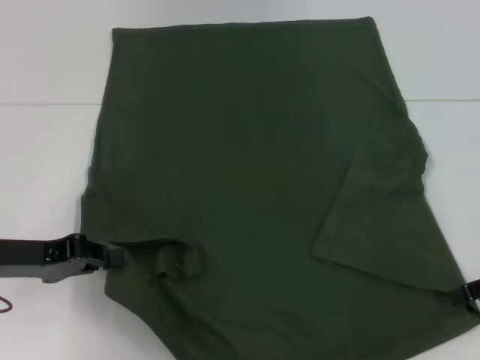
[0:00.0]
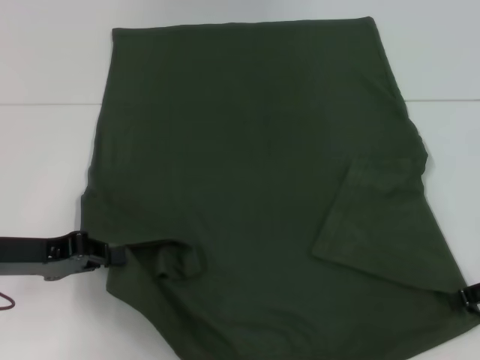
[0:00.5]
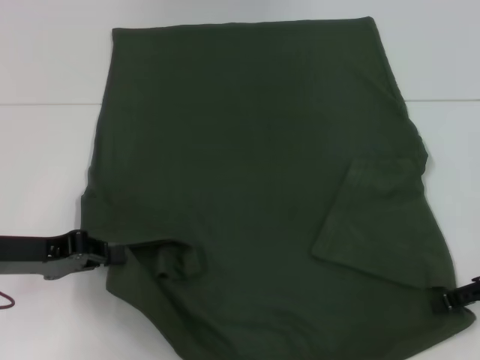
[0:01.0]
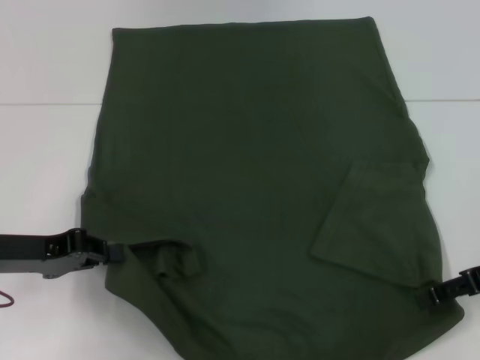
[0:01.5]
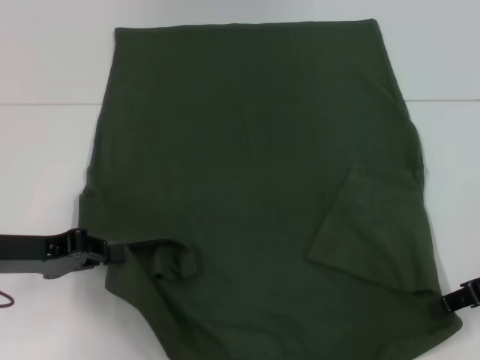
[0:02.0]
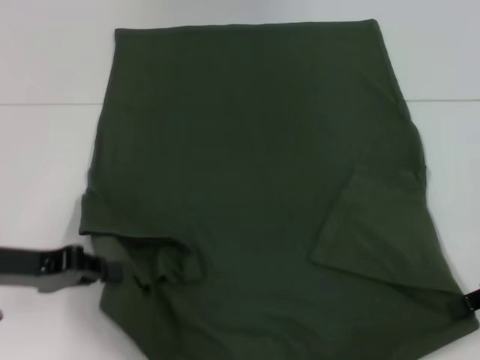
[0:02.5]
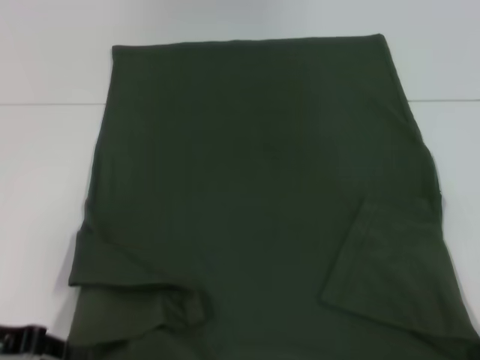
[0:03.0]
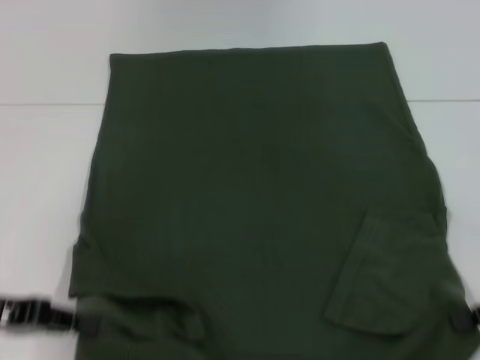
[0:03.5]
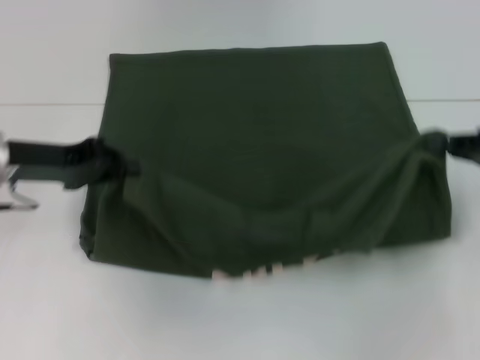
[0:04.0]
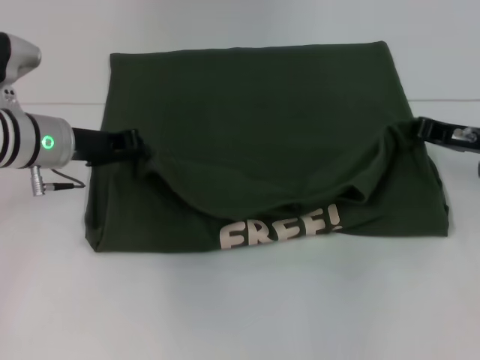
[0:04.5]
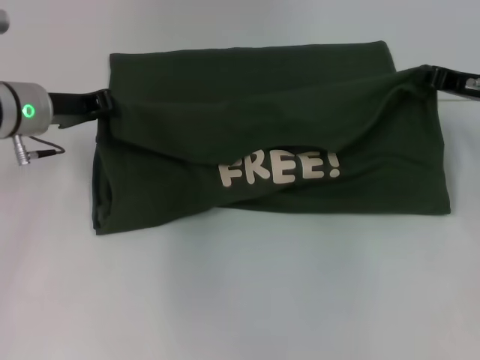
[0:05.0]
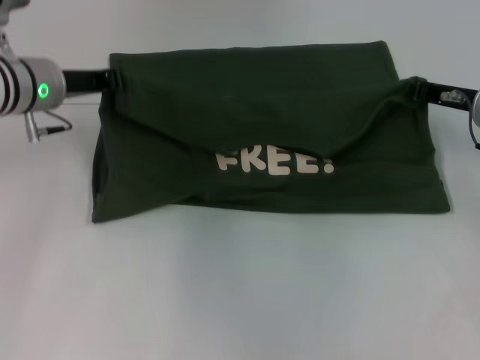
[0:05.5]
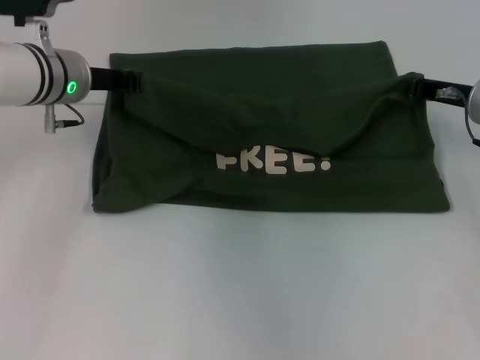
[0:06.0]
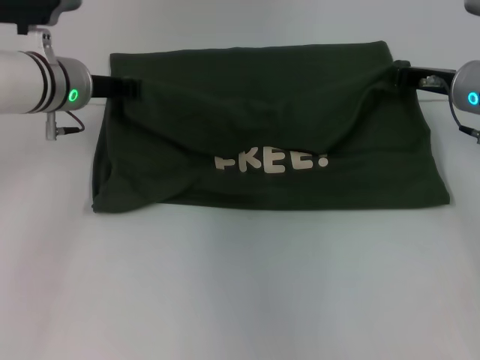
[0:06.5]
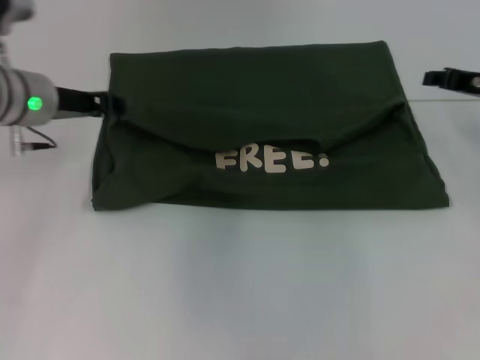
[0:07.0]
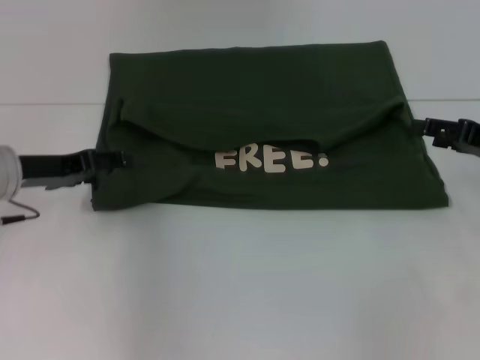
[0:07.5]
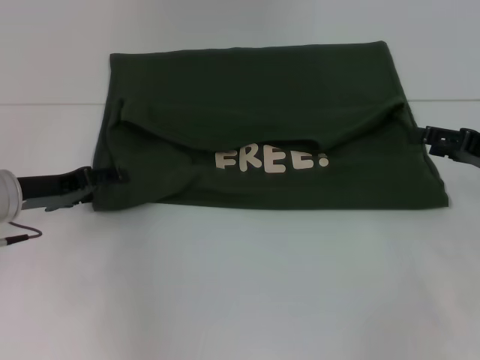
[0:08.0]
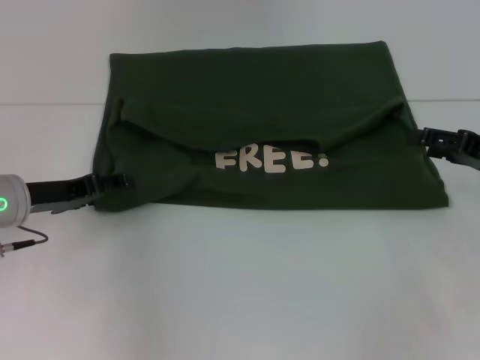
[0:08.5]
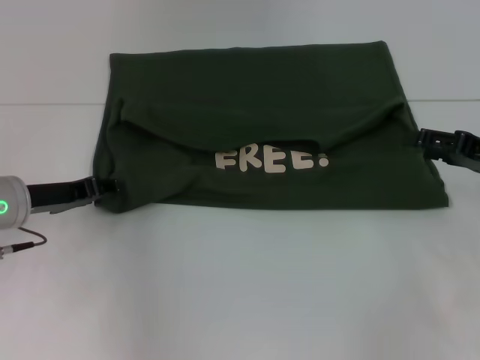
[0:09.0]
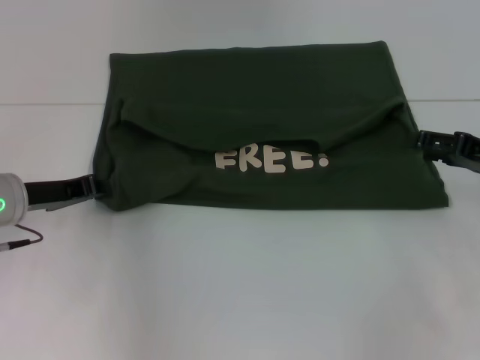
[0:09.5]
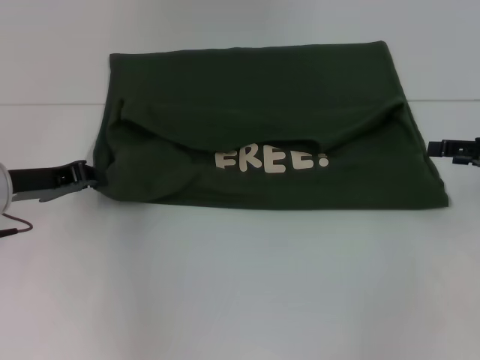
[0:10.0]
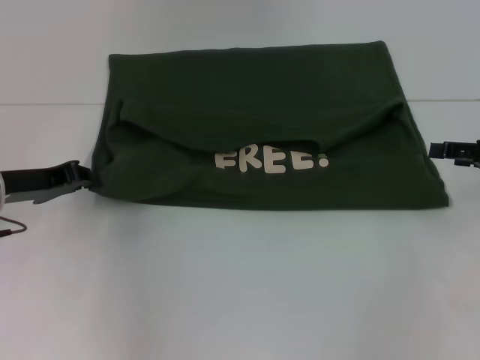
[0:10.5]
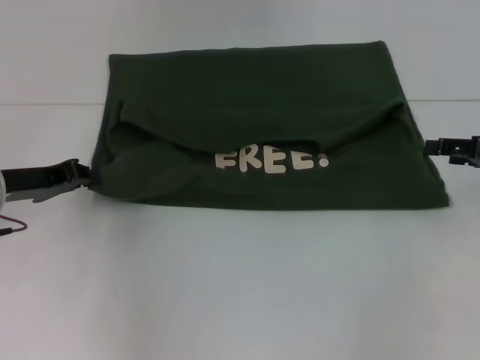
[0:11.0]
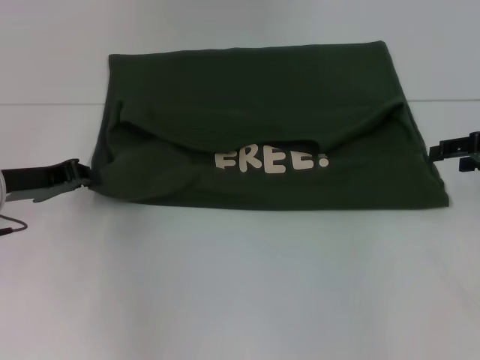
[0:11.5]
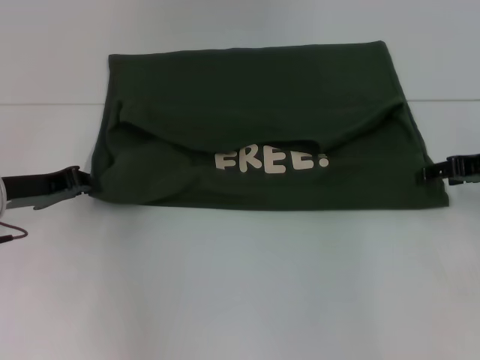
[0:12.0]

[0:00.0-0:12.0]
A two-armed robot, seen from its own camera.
Step, 0:01.5 to 0:06.5: Fold the clothes with your left hand.
Step, 0:01.5 to 0:06.5: Fold the clothes with your right hand.
0:00.0 to 0:02.0: The right gripper closes its fingers.
0:02.0 to 0:04.0: The left gripper travels forward by about 5 cm.
0:04.0 to 0:06.0: The left gripper goes approximately 10 cm forward and to the right; the right gripper moves forward and to the left, roughly 10 cm.
0:06.0 to 0:08.0: The left gripper shifts roughly 15 cm backward, to the left and downward, and opens up. Meanwhile the right gripper shifts approximately 10 cm backward and to the right, and opens its fingers.
0:08.0 to 0:10.0: The left gripper closes its fingers.
0:10.0 to 0:12.0: The grippers stay close to where they were, moving slightly.

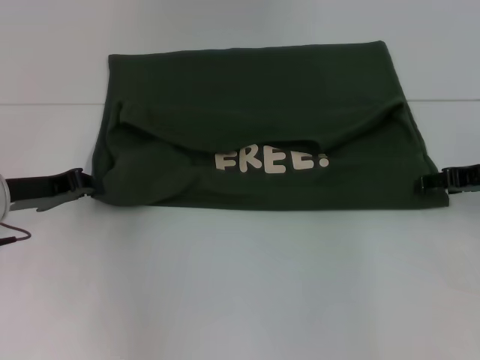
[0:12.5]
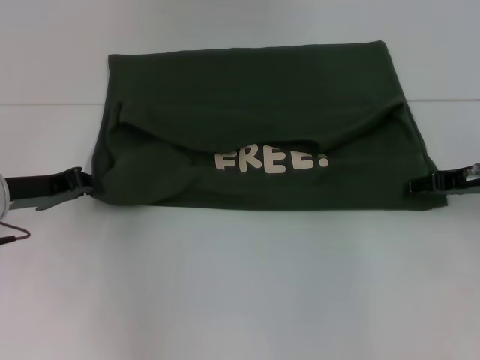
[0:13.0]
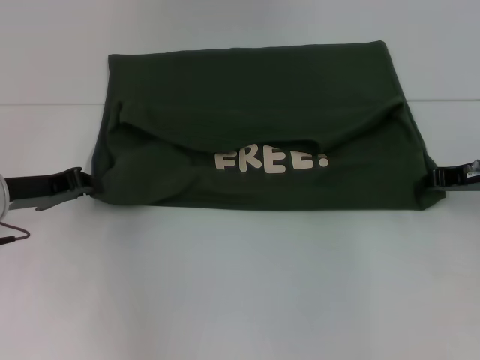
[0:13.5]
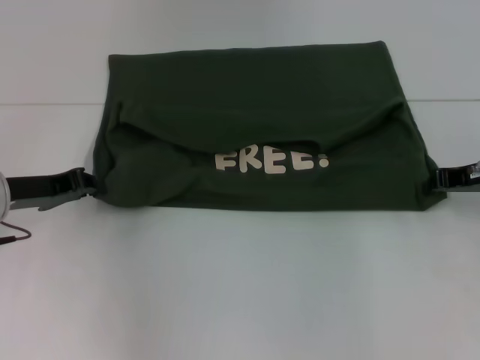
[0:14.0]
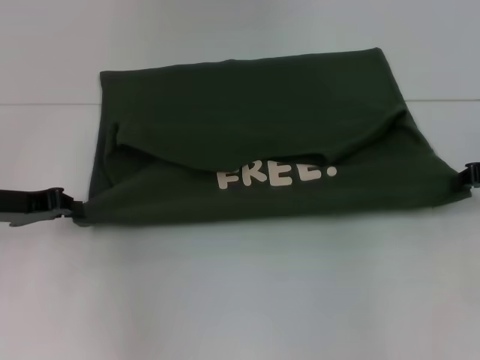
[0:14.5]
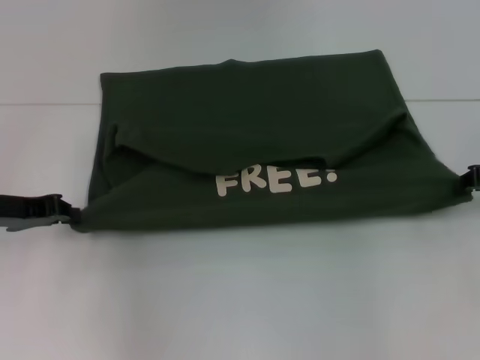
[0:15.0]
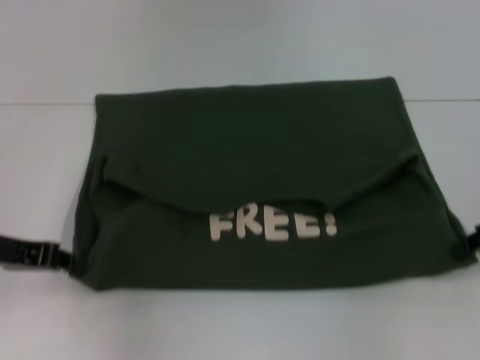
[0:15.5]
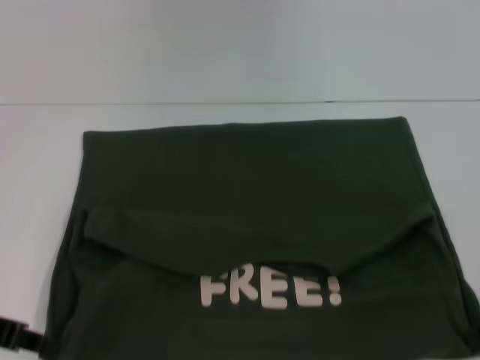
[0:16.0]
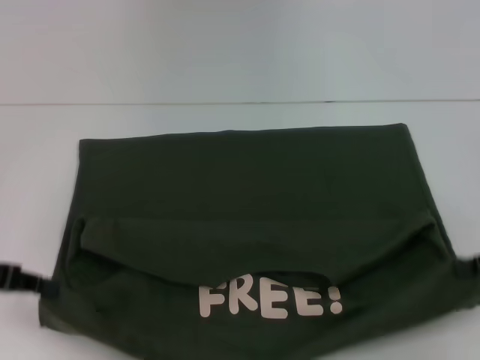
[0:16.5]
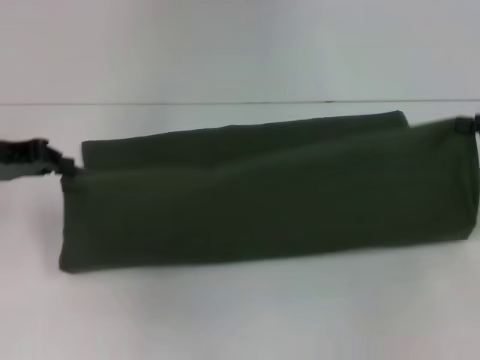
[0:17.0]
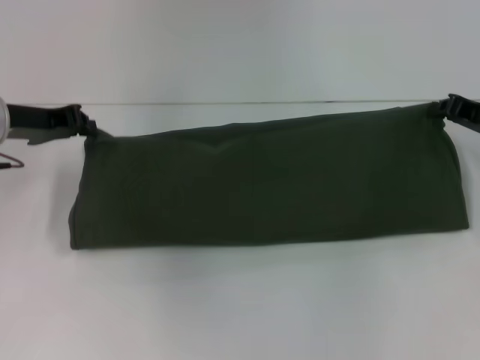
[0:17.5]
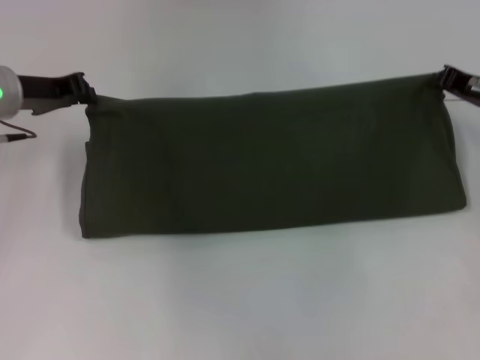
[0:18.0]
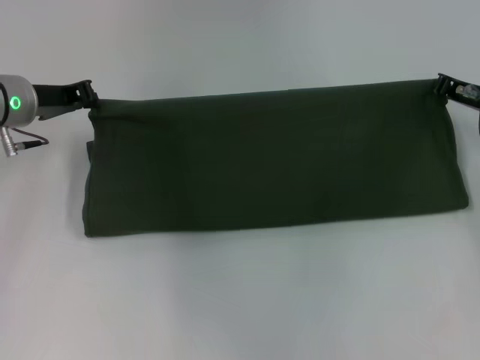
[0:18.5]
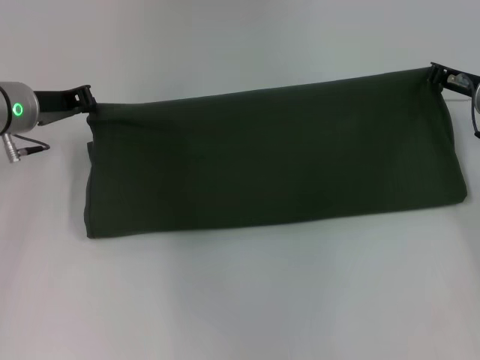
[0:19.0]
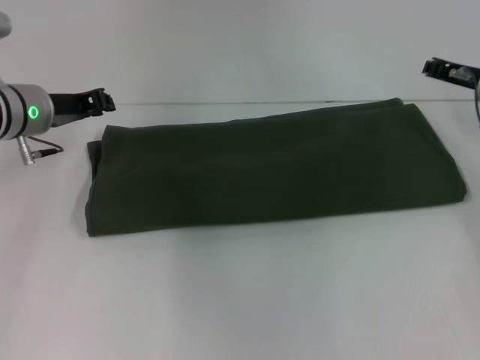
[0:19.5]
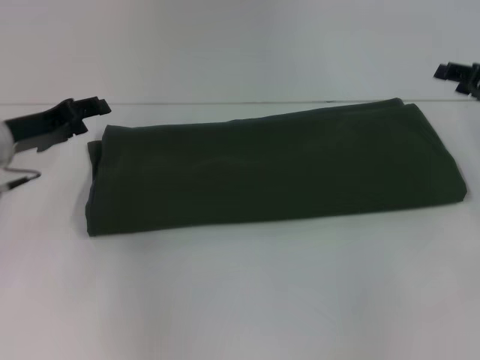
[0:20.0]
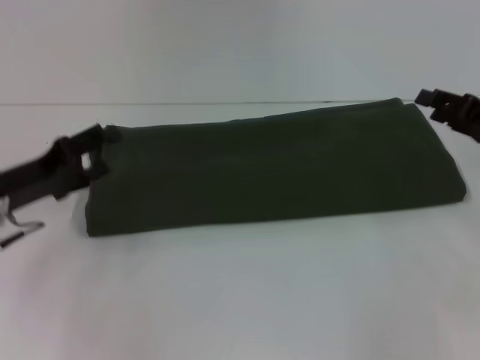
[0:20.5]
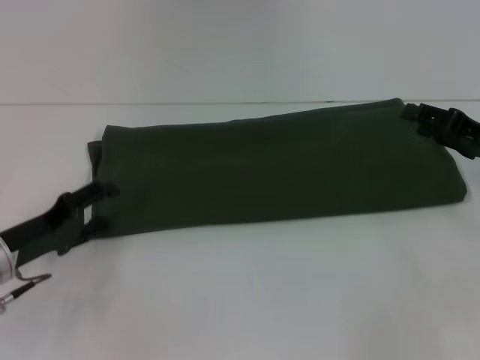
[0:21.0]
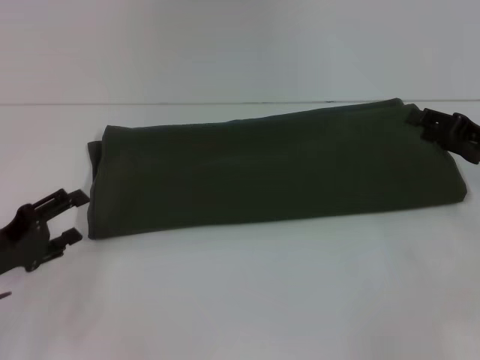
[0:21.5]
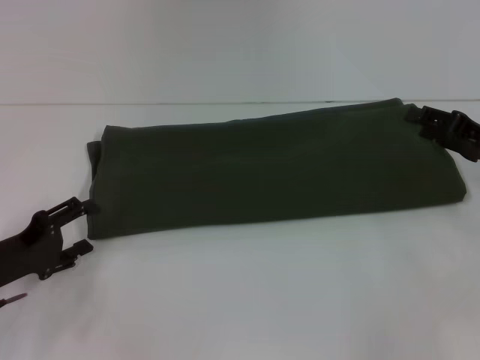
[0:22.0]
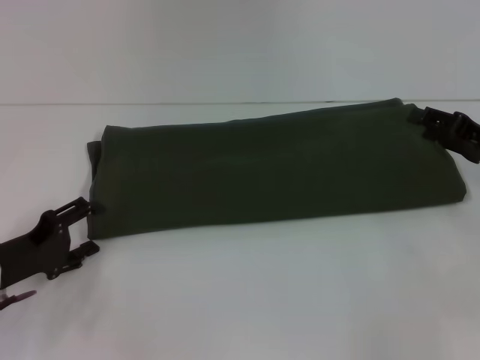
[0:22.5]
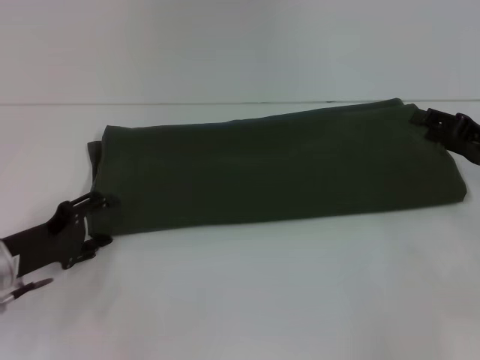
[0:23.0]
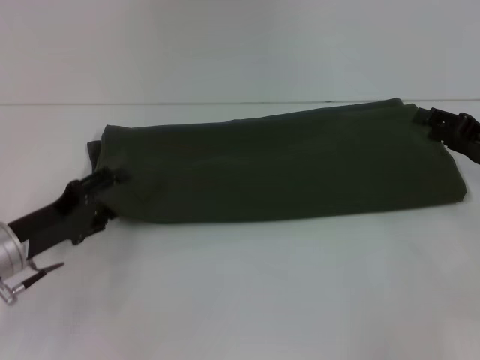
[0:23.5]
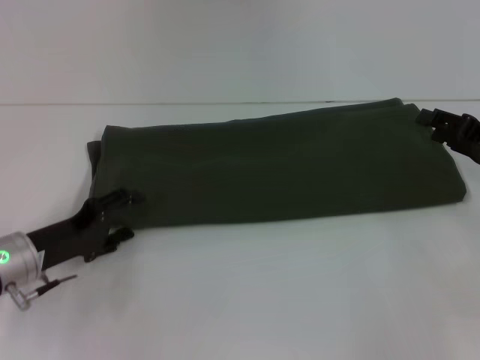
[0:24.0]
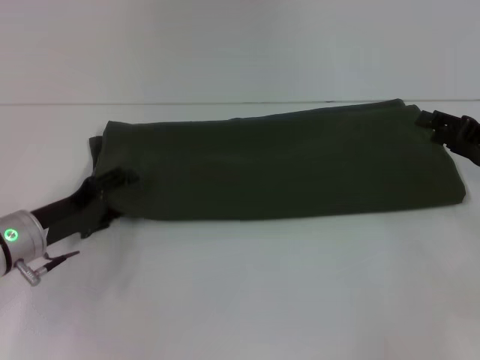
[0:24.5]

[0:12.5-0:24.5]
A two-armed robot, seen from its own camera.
Step, 0:12.5 to 0:16.0: Pull the clothes with your left hand.
Step, 0:12.5 to 0:16.0: Pull the clothes with your right hand.
Step, 0:16.5 to 0:19.0: Fold the clothes with your right hand.
0:12.5 to 0:14.5: The right gripper closes its fingers.
0:14.5 to 0:16.5: The grippers both shift backward by roughly 10 cm.
0:16.5 to 0:18.5: The right gripper shifts roughly 15 cm forward and to the left. The left gripper moves forward and to the right, some 20 cm.
0:18.5 to 0:20.5: The right gripper moves backward, some 5 cm, and opens its fingers; the left gripper travels backward and downward by roughly 15 cm, and opens.
0:20.5 to 0:22.5: The left gripper moves downward, approximately 5 cm.
0:22.5 to 0:24.5: The left gripper shifts by roughly 5 cm.

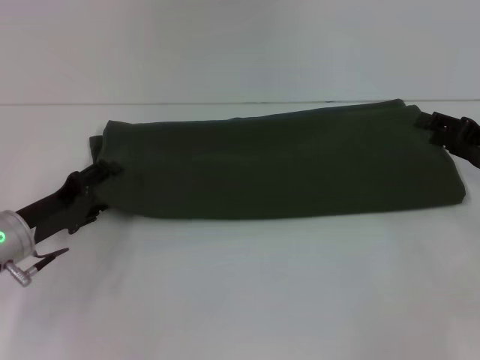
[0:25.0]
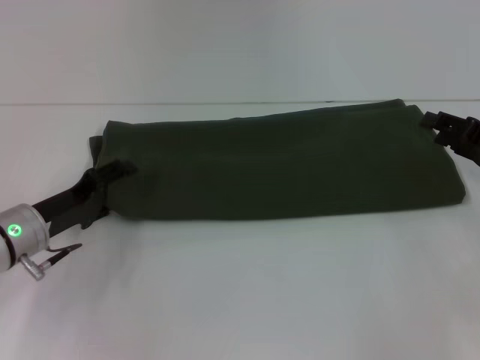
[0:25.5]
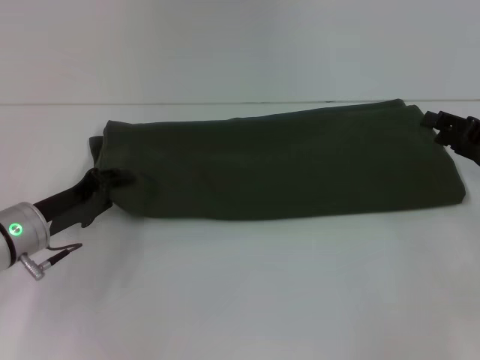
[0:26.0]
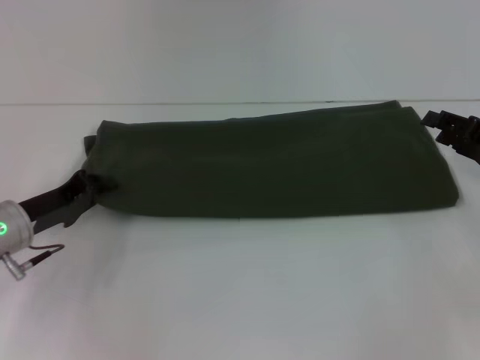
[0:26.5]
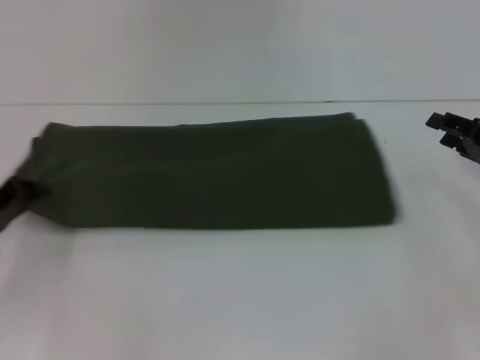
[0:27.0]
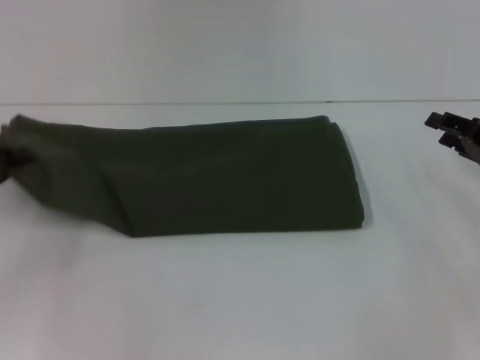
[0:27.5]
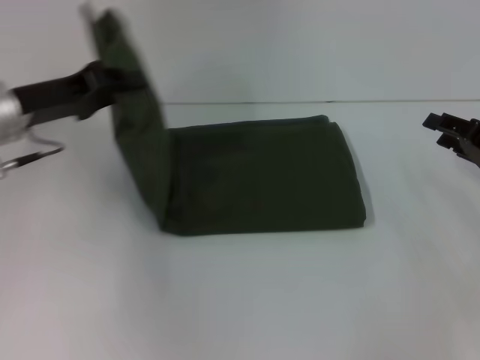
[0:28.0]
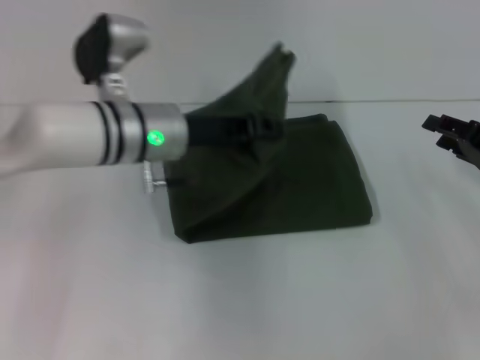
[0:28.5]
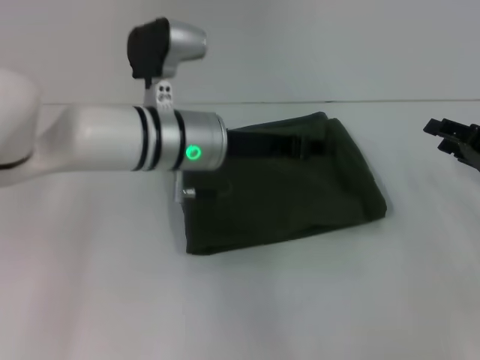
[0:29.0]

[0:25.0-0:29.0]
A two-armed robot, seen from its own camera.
Step, 0:25.0 to 0:28.5: Fold the clothes with your left hand.
0:25.0 to 0:27.0: The left gripper goes about 5 cm to the left, and closes up.
0:27.0 to 0:29.0: The left gripper travels to the right by some 25 cm.
